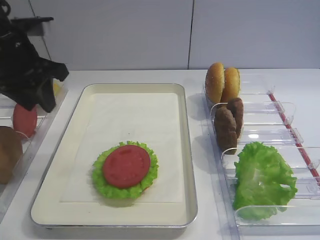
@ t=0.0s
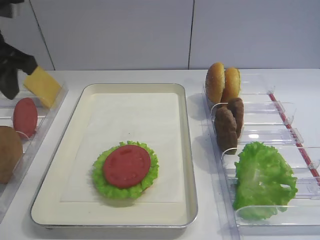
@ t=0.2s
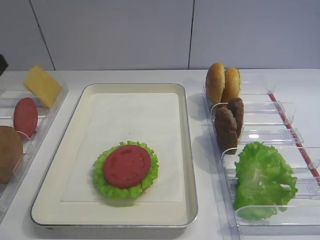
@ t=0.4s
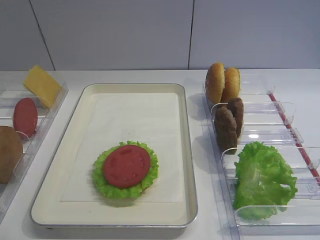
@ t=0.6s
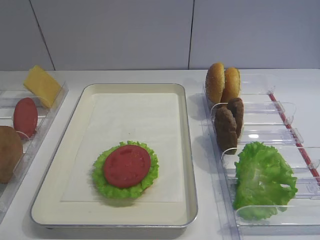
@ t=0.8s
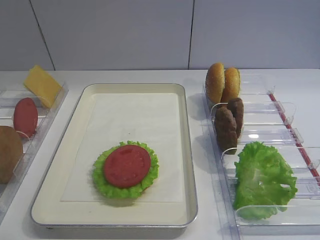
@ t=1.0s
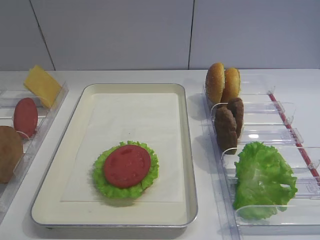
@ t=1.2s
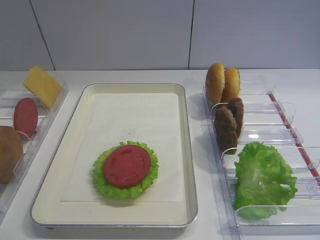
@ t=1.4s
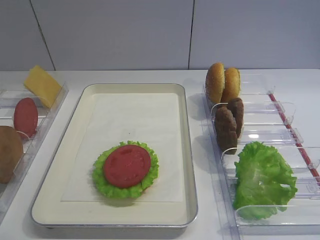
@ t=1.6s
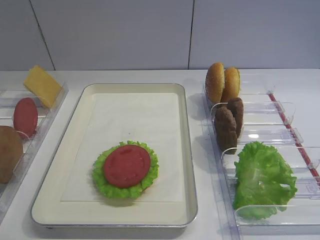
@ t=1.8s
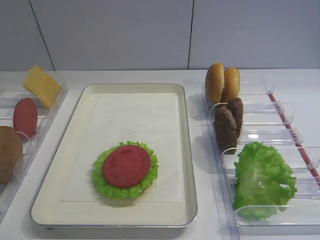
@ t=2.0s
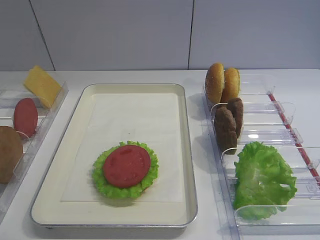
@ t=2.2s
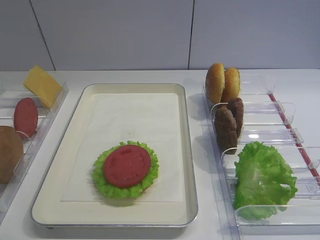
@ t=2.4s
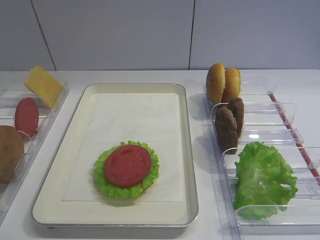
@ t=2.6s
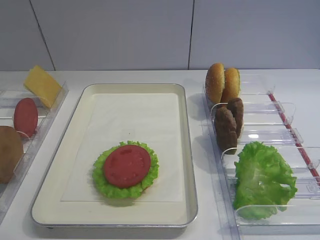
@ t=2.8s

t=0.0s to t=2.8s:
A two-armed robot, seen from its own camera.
t=0.0s to t=1.4s: The left gripper is displaced backward by some 30 cm.
